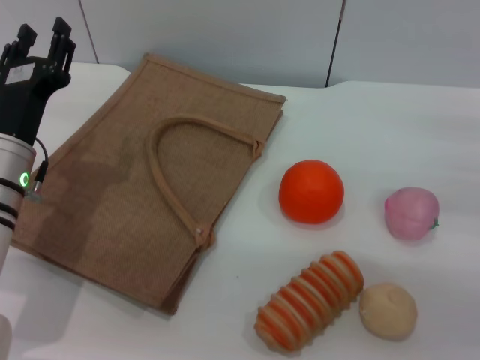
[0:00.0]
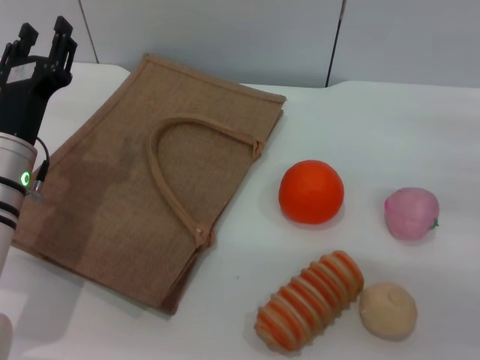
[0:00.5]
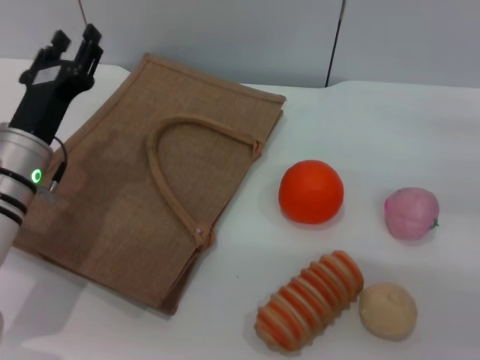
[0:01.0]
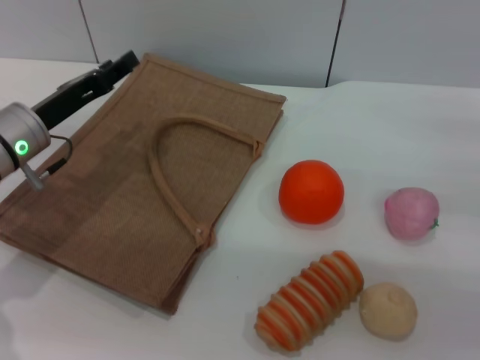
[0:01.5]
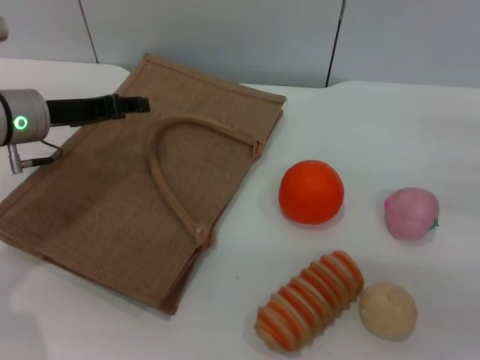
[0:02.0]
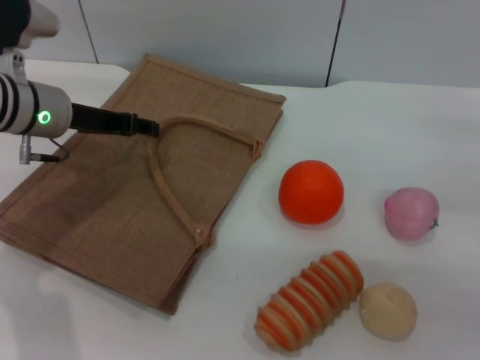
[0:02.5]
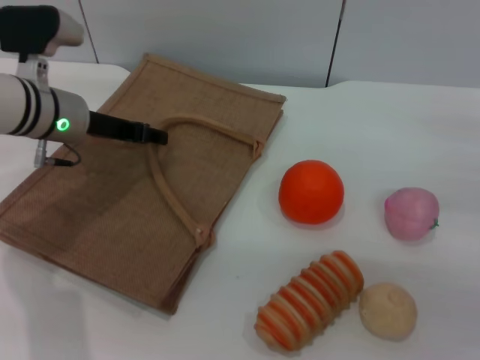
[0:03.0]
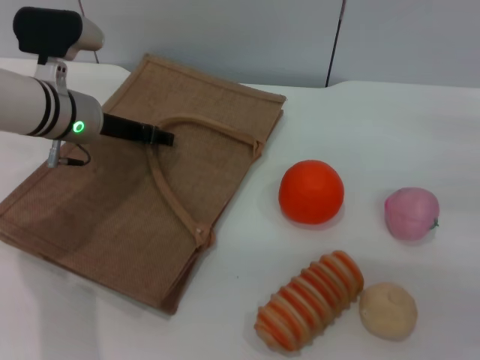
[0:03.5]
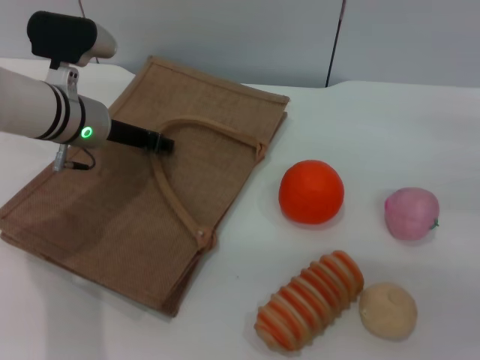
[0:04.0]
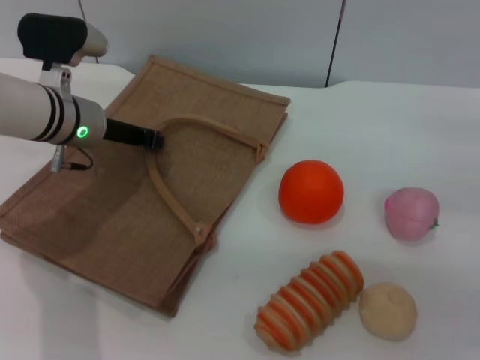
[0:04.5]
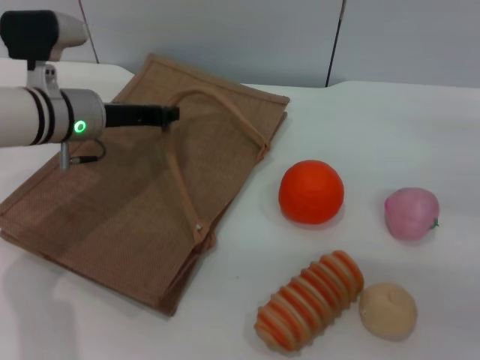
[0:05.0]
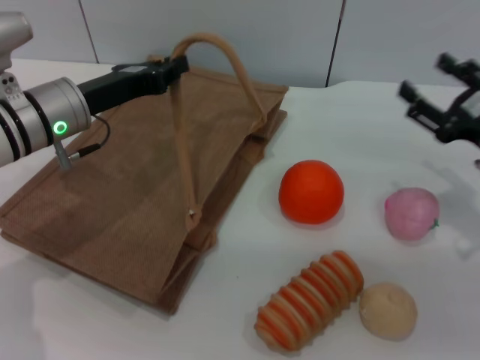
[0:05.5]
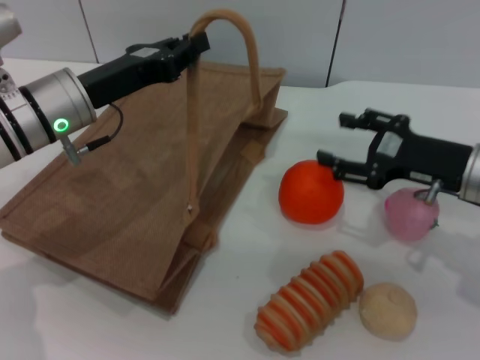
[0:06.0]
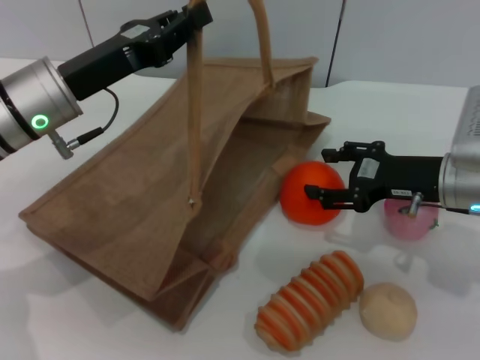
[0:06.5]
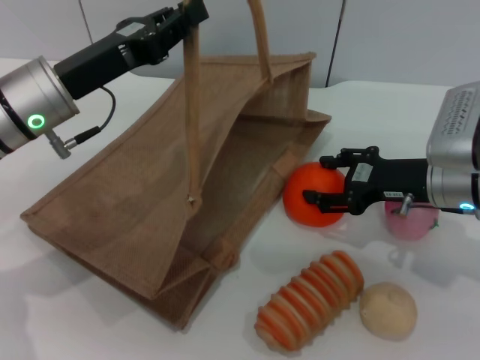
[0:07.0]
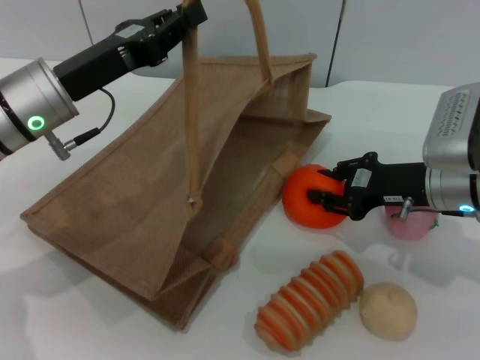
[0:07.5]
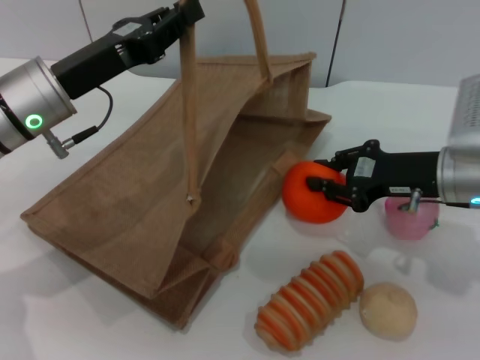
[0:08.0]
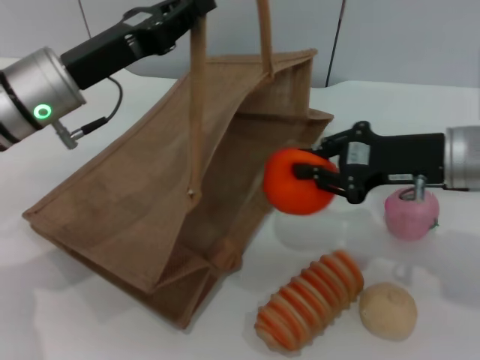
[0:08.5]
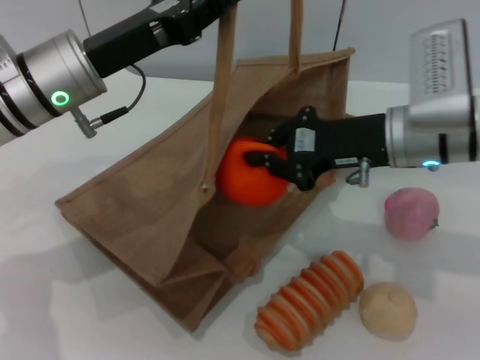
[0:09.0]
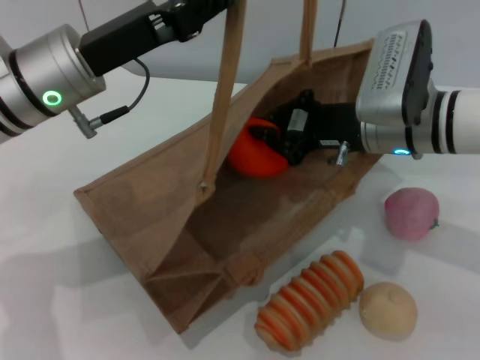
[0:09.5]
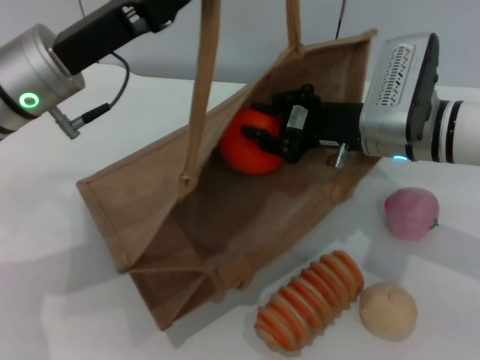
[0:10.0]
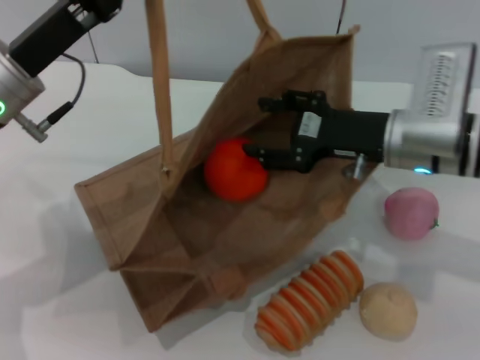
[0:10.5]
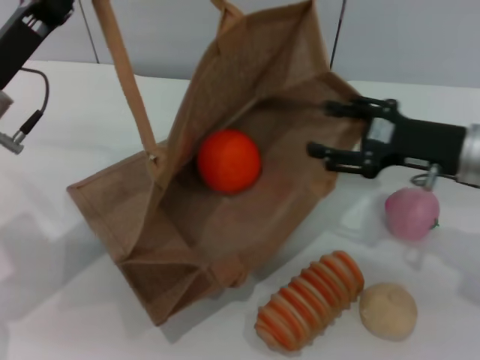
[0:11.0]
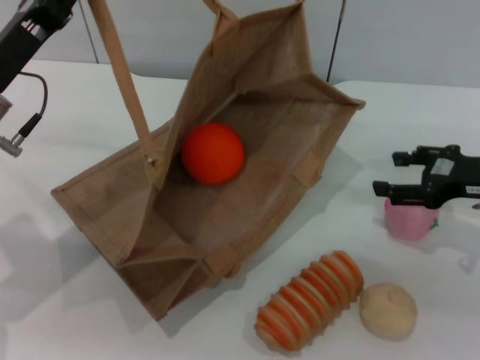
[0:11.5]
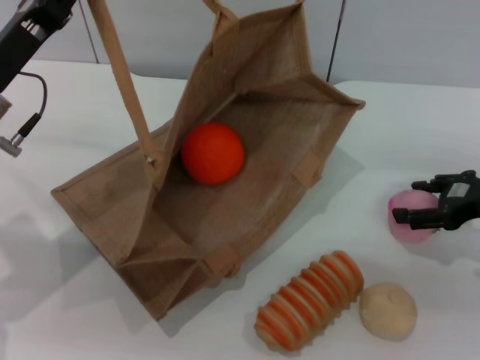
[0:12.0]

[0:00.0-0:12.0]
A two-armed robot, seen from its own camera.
Task of the whole recording: pick up the orange and peach from the table and place it in the brown handbag.
Step, 0:00.0 to 0:05.0: Lift the woven bag with the left gripper to open it.
Step, 0:05.5 to 0:08.0: Pick up the orange with the right gripper.
Step, 0:08.5 to 0:10.5: Place the orange into the woven bag with the right gripper.
0:00.0 to 0:02.0: The left gripper shifts about 10 cm forward.
0:02.0 to 0:04.0: The left gripper is displaced to the right by some 5 cm.
0:04.0 to 0:06.0: The left gripper shifts some 5 cm backward, and closes its fingers; the right gripper moves to the left, some 10 cm.
0:06.0 to 0:08.0: The right gripper closes.
0:08.0 to 0:10.0: The right gripper moves to the left, roughly 10 cm.
0:10.0 to 0:12.0: The left gripper heads to the left, covering roughly 5 cm, while the right gripper goes about 15 cm to the right, and opens its fingers.

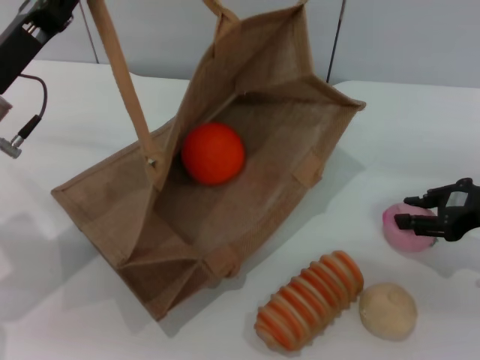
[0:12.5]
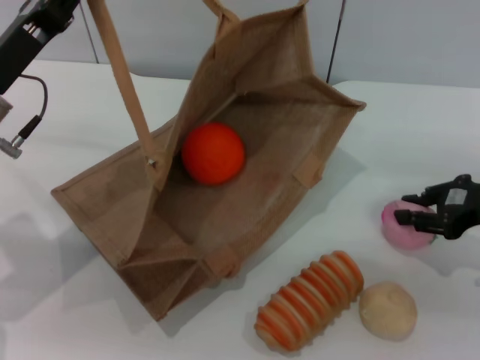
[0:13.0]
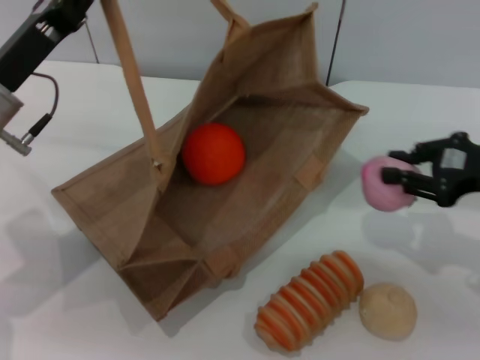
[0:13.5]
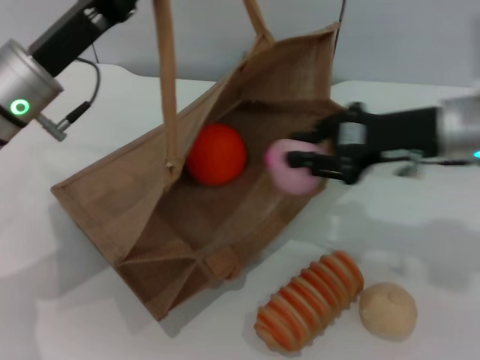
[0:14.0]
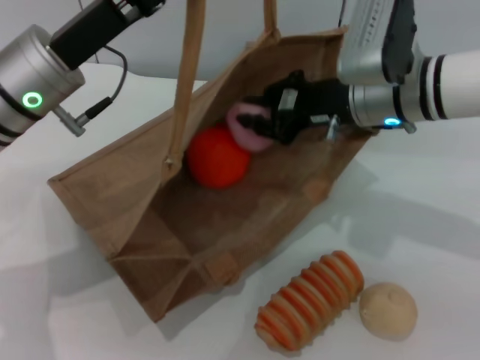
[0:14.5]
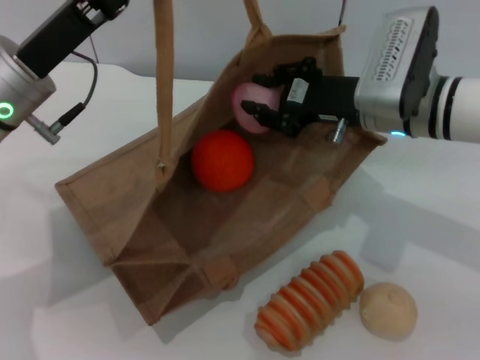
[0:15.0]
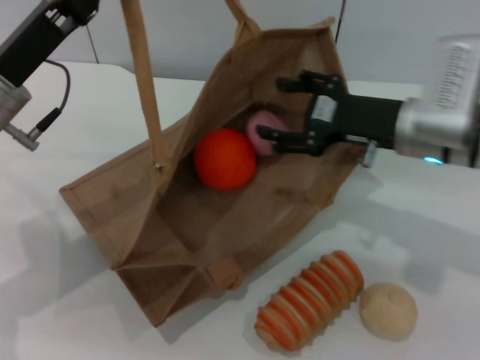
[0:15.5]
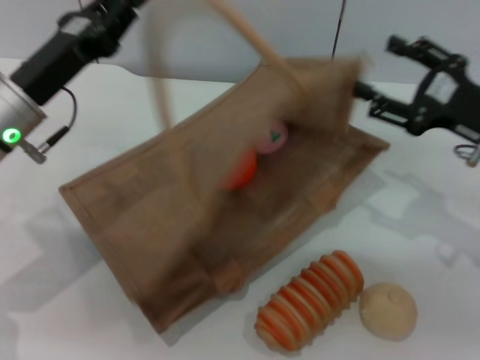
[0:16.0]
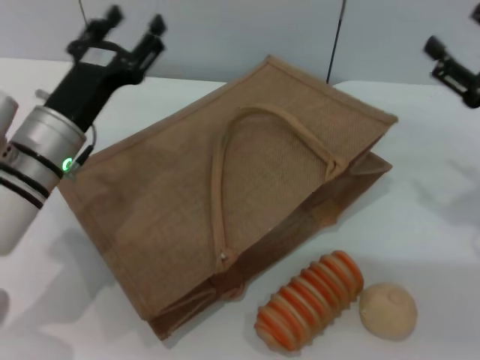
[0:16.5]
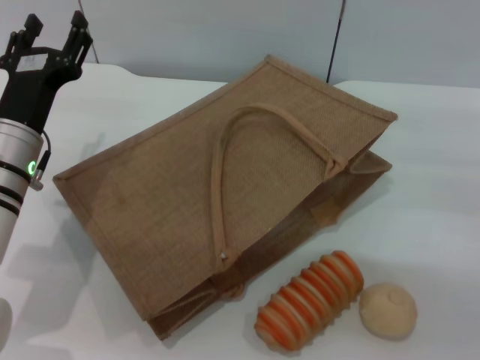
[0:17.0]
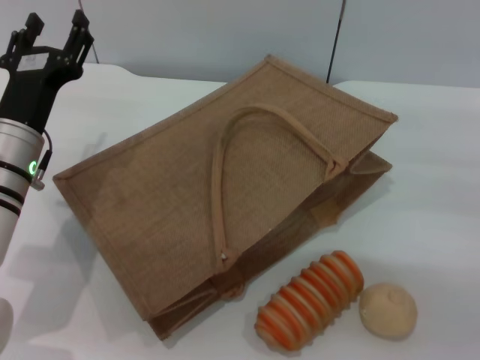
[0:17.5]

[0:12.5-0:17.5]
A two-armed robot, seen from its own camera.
Task of the whole recording: pick up the orange and peach from the table and place it in the brown handbag.
Step, 0:13.5 to 0:15.5: Place the peach into the woven bag with the right gripper.
0:12.5 to 0:15.0: The right gripper heads to the left, covering roughly 15 cm.
0:15.0 to 0:17.5: The left gripper heads downward, covering about 10 cm, and opens; the right gripper heads to the right and backward, covering roughly 20 cm, and opens its fingers.

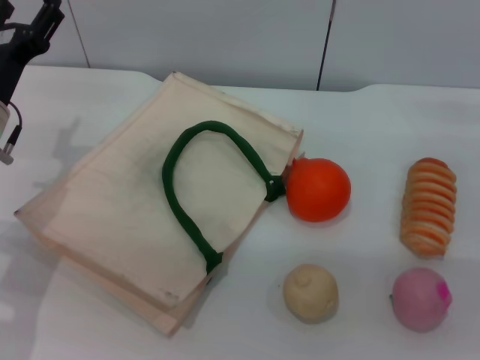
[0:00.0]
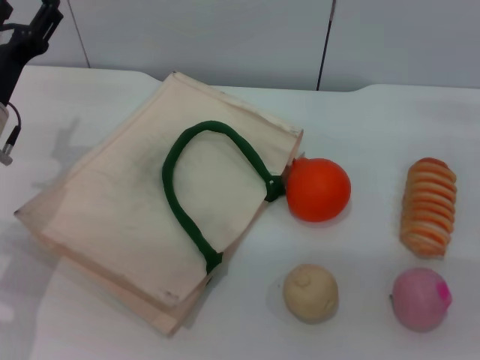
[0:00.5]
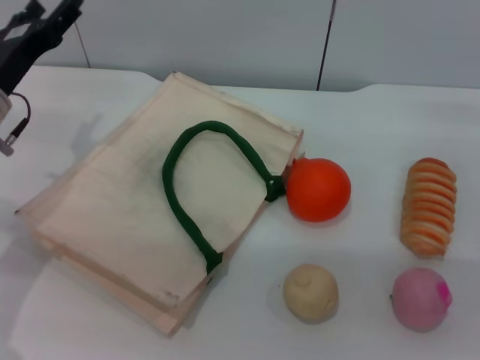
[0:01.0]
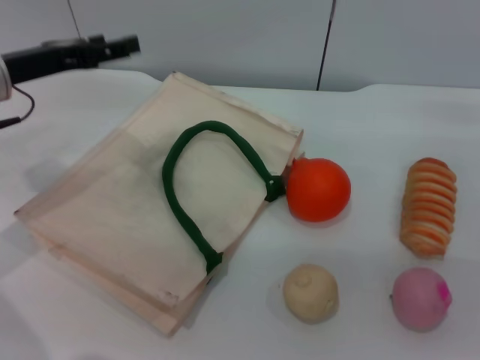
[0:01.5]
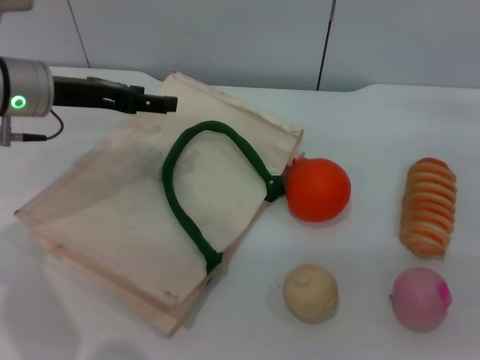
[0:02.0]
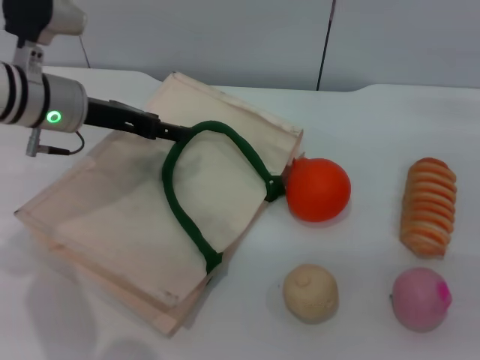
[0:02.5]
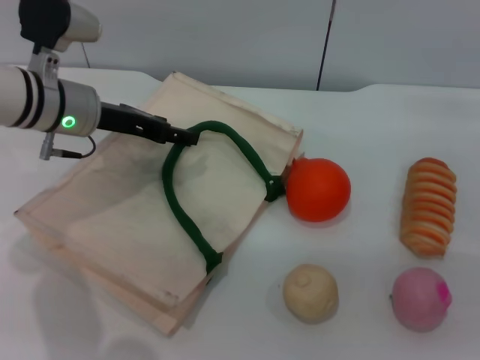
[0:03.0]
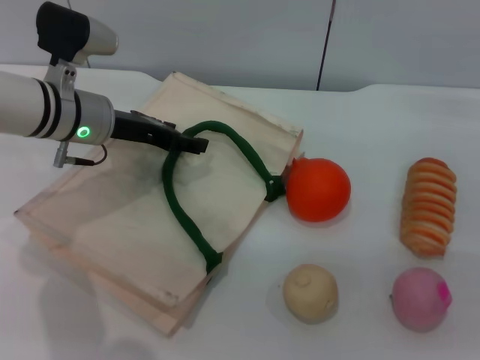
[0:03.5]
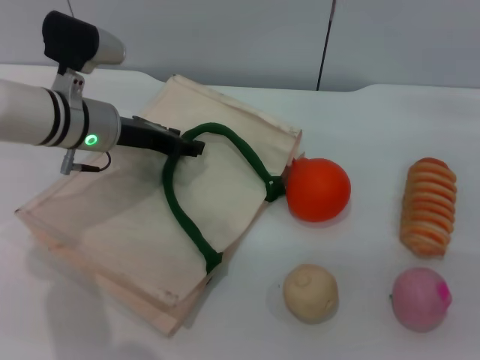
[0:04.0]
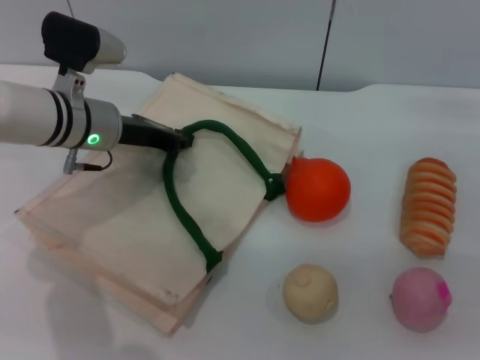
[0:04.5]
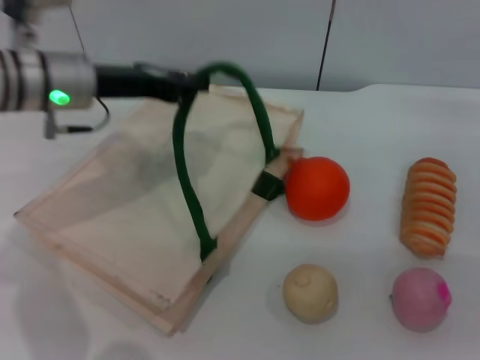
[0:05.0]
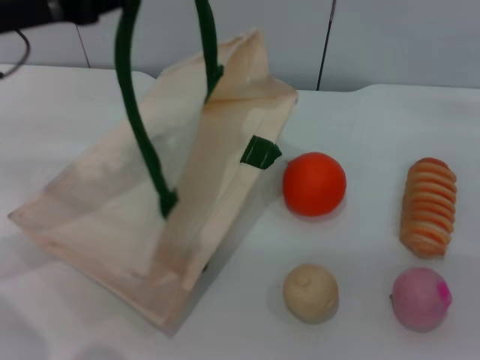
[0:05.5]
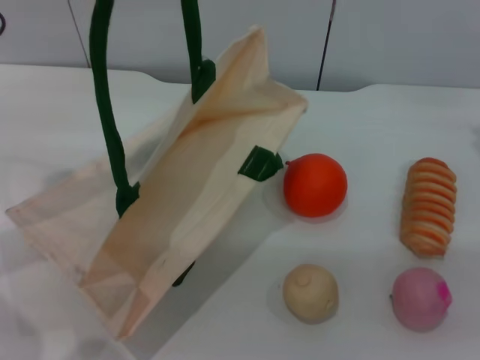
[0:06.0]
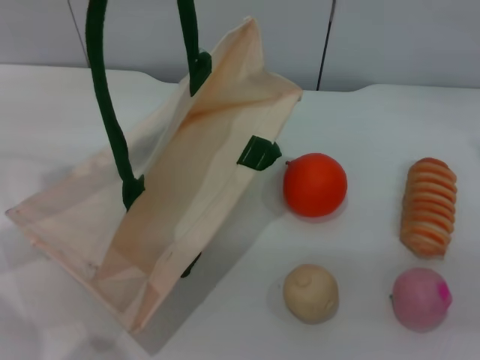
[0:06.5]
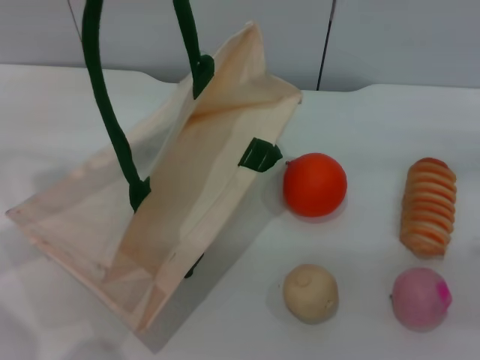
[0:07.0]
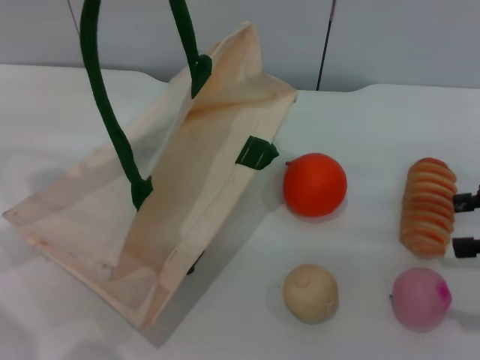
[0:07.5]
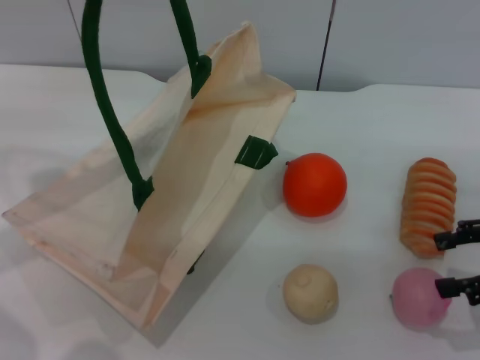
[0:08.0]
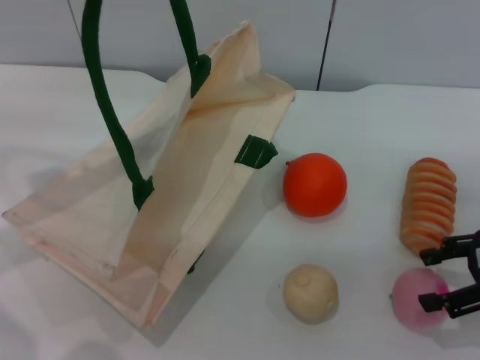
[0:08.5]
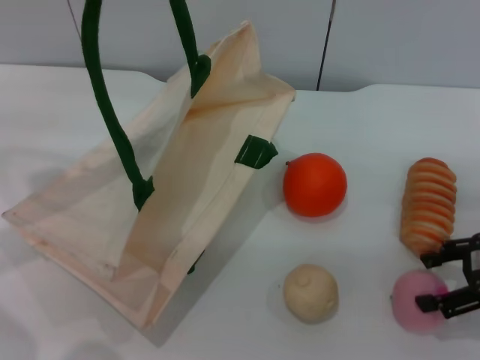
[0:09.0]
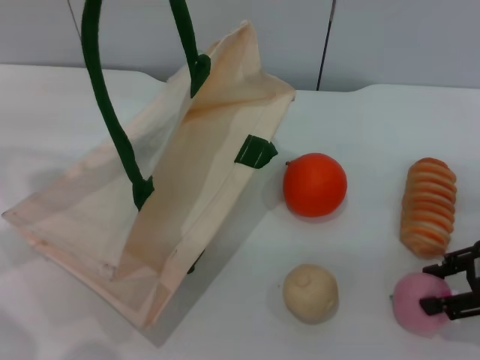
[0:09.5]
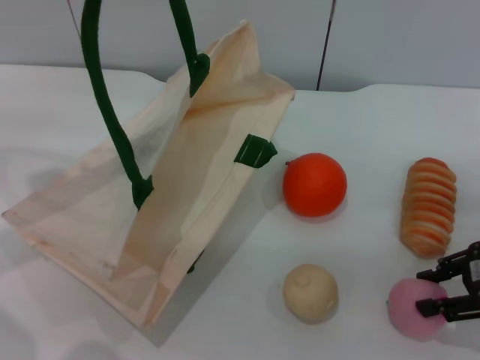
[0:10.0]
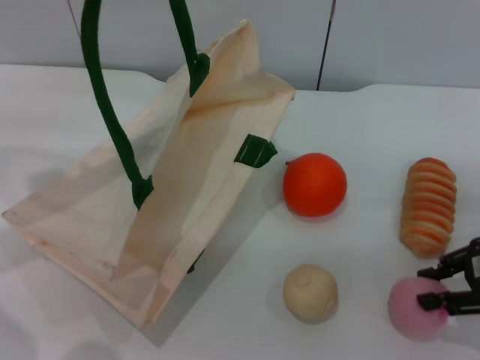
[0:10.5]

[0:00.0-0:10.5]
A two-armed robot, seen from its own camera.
Task of the whole recording: pick up the peach from the table and place it in the white handbag.
Step, 0:00.0 to 0:05.5: Lift the woven bag with the left gripper to open it.
0:00.0 to 0:02.0: The left gripper travels upward by roughly 5 cm.
0:02.0 to 0:04.0: The left gripper heads to the right and downward, covering some 10 cm.
0:04.0 to 0:06.5: The left gripper moves upward and to the left, roughly 20 cm, and closes up. Meanwhile the right gripper goes roughly 10 cm upward and to the right.
0:06.5 to 0:08.5: The right gripper heads backward, downward and to the left, covering roughly 10 cm.
0:08.5 to 0:10.5: The right gripper closes up.
